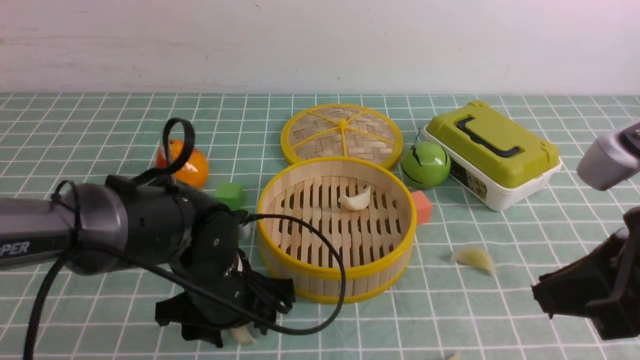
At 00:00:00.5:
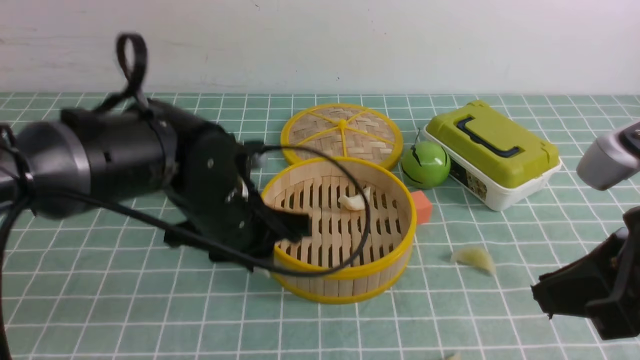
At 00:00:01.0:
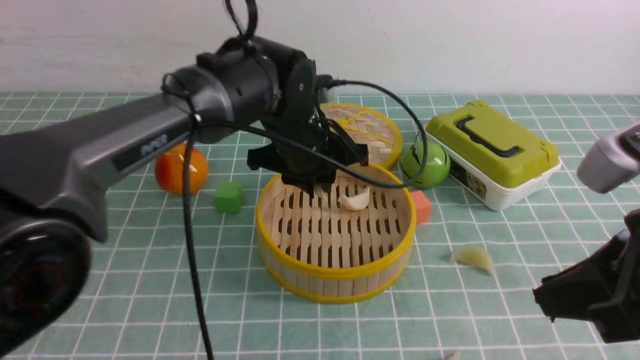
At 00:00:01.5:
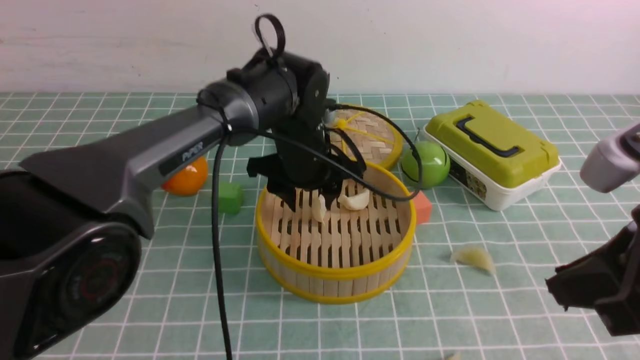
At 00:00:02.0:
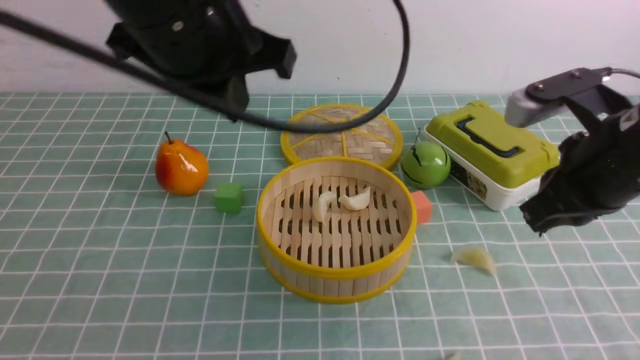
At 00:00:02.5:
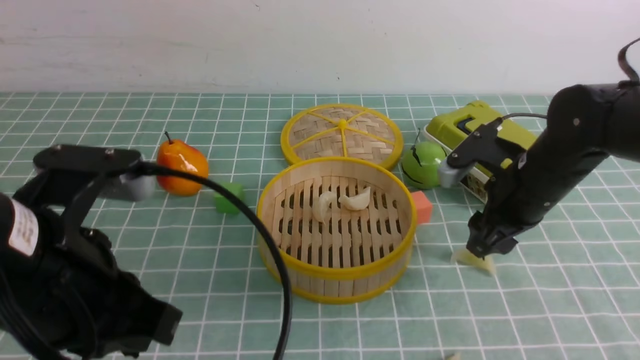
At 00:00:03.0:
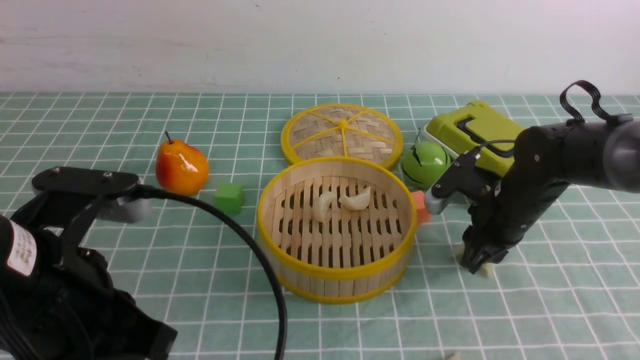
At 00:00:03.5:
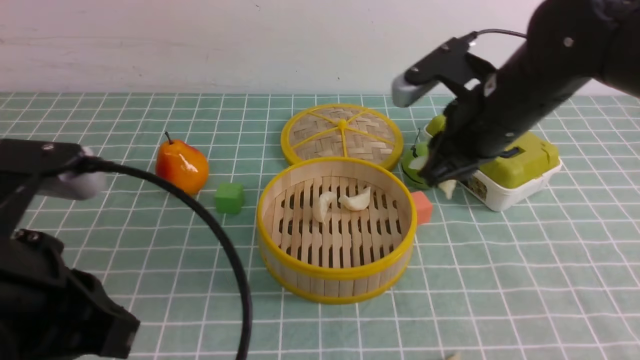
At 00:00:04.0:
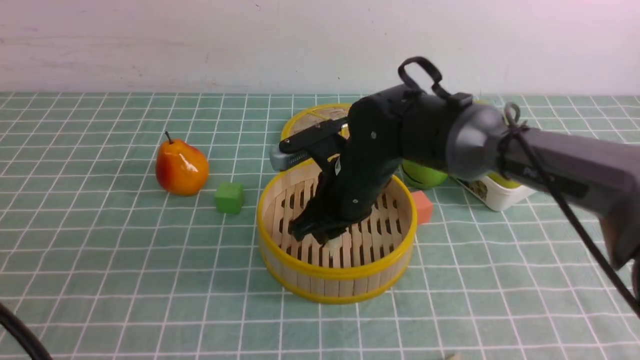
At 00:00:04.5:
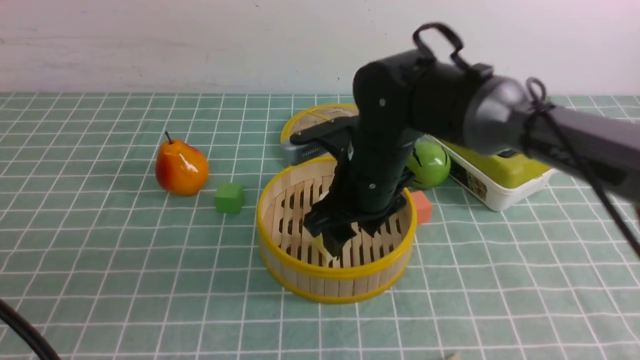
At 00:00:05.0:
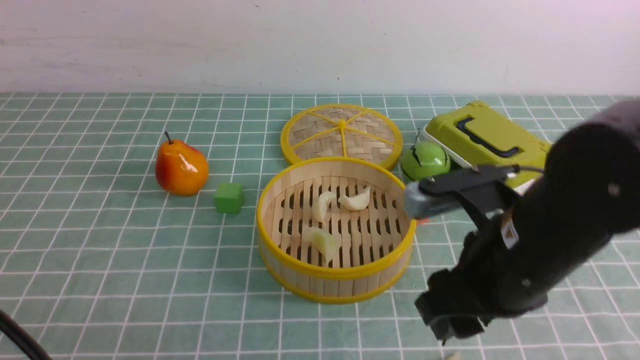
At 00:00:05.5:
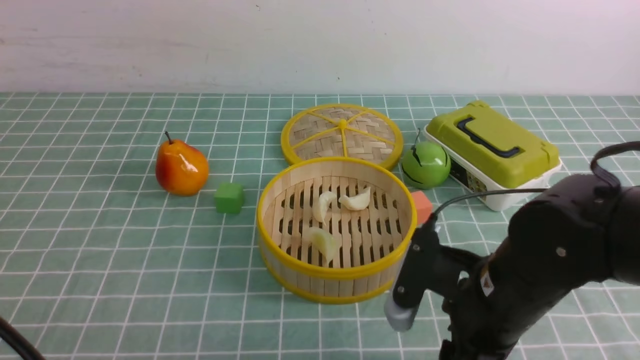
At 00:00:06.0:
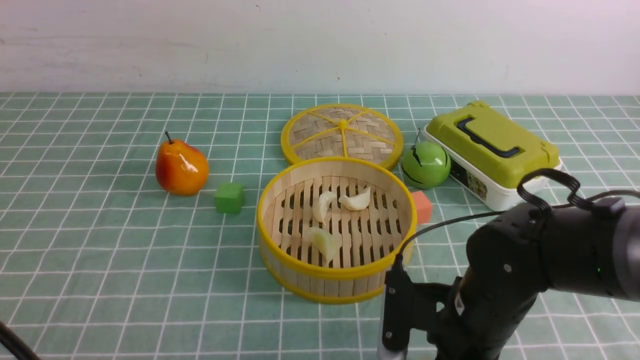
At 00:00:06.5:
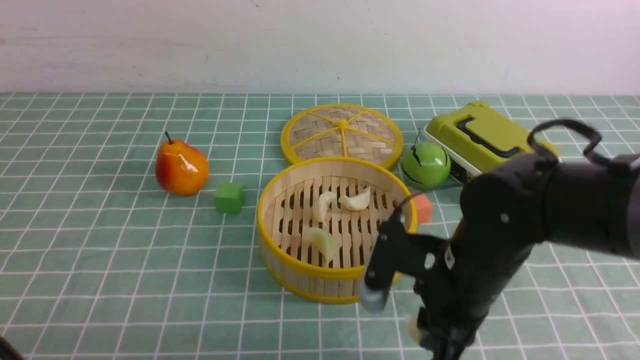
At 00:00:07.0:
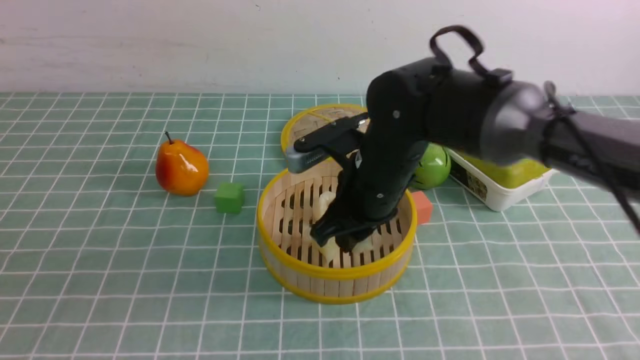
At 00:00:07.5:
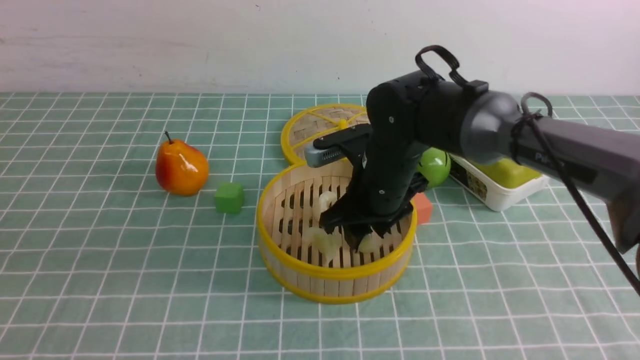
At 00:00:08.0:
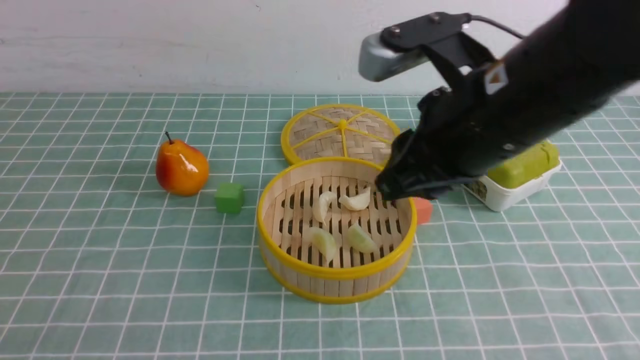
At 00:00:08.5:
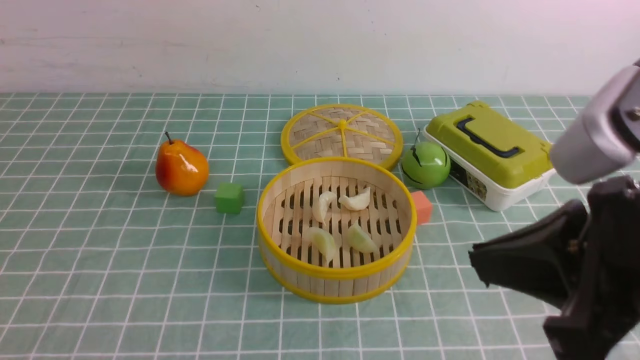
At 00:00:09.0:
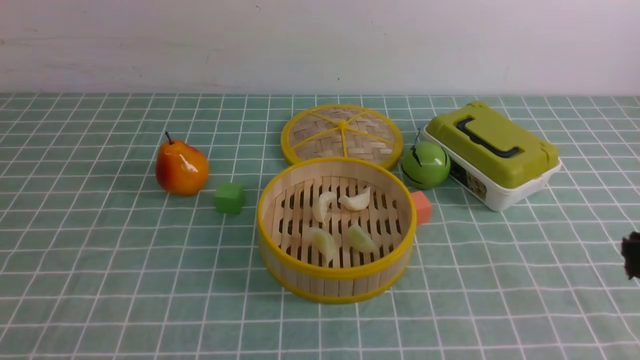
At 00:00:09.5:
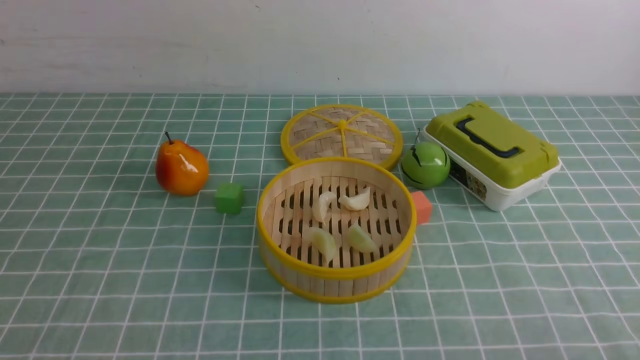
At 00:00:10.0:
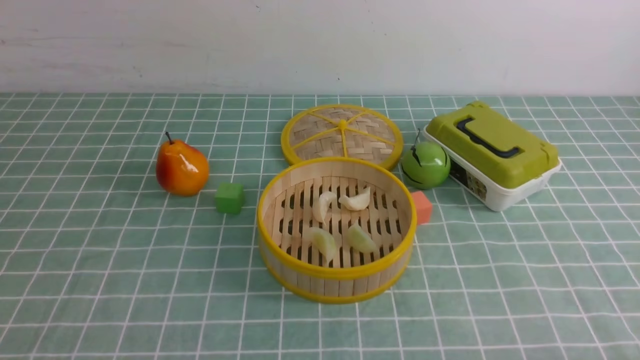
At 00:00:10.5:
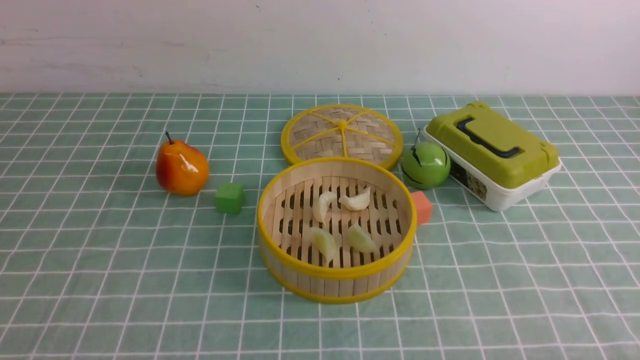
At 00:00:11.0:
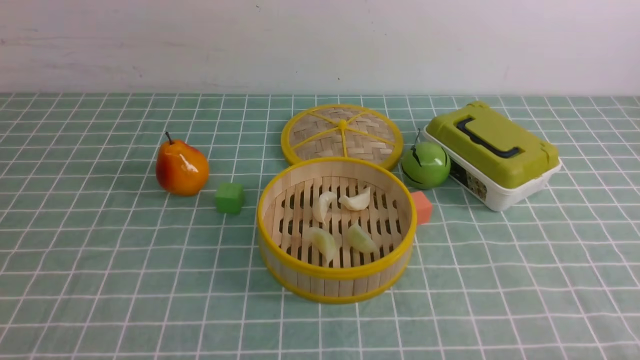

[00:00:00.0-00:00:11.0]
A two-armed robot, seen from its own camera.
Task of the whole recording: put the dumplings into the steamer on the table with the blue tablecloth.
Step, 00:00:00.5 to 00:00:01.5: use the left arm to put the dumpling into the steamer.
Step, 00:00:02.0 to 00:00:02.5: use the right arm to grab a dumpling.
Step, 00:00:03.0 to 00:00:04.5: use the right arm to put the dumpling into the steamer.
Step, 00:00:05.0 to 00:00:06.0: use the right arm to grab a dumpling.
Step, 00:00:06.5 to 00:00:07.5: use the right arm to put the dumpling into the steamer.
00:00:00.0 to 00:00:02.0: The left gripper heads upward, covering about 25 cm, and closes its fingers. Meanwhile the right gripper travels forward by about 10 cm.
00:00:02.0 to 00:00:03.5: The right gripper is displaced to the left and forward by about 10 cm, reaches some 15 cm downward, then returns, and opens, while the left gripper is displaced backward, to the left and downward by approximately 20 cm.
00:00:03.5 to 00:00:05.5: The right gripper moves backward and downward, some 15 cm, and opens, while the left gripper is displaced backward by approximately 5 cm.
00:00:05.5 to 00:00:07.5: The left gripper moves backward and downward, roughly 10 cm, while the right gripper travels forward and to the left by approximately 15 cm.
00:00:07.5 to 00:00:09.0: The right gripper is displaced backward, to the right and upward by about 35 cm, and closes up.

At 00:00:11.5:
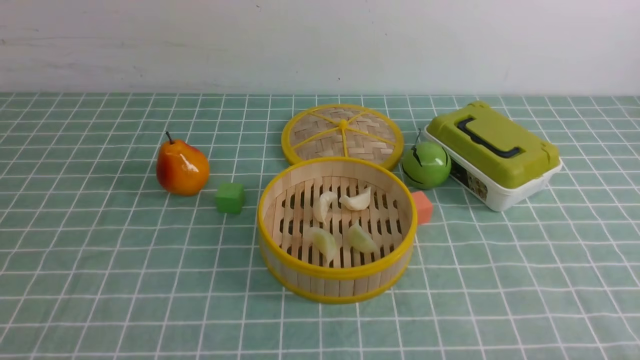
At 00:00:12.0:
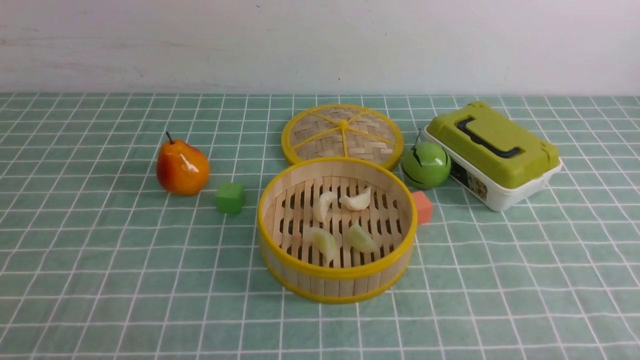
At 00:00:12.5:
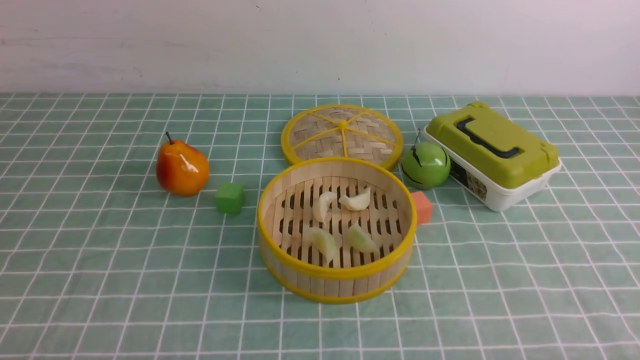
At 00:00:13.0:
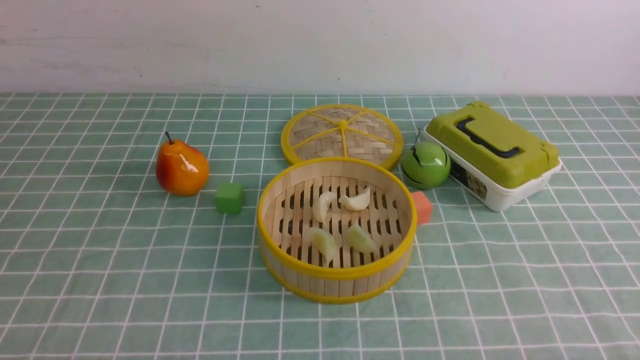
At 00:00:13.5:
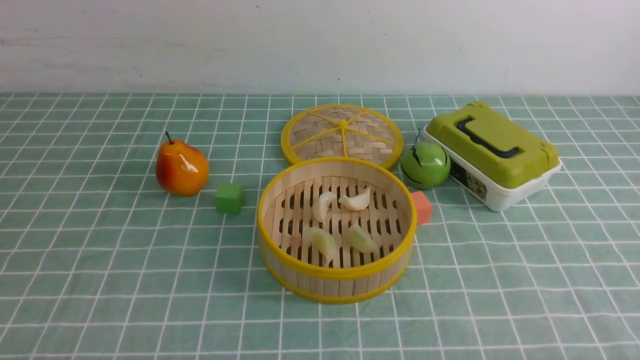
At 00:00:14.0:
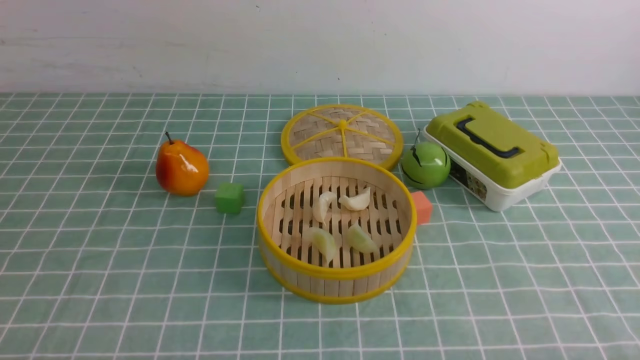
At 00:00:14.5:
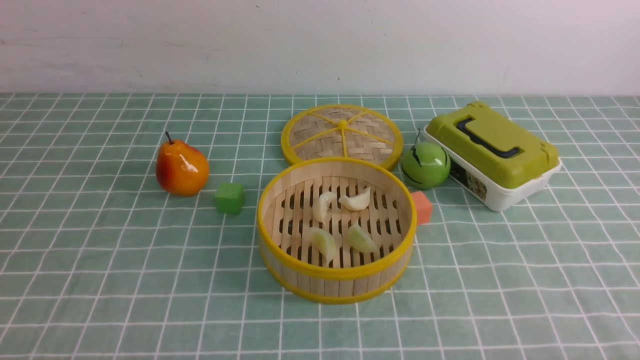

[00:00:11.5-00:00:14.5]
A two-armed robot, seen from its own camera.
Task of the whole recording: put the dumplings into the steamer on the table with the blue tablecloth.
00:00:13.0 to 00:00:14.5: The two grippers keep their place.
